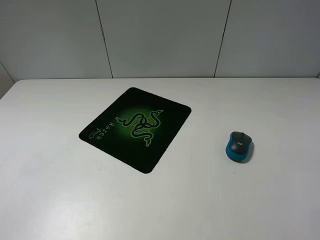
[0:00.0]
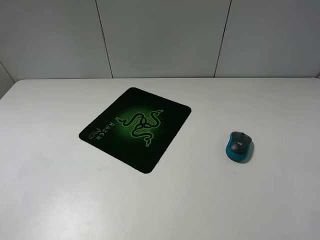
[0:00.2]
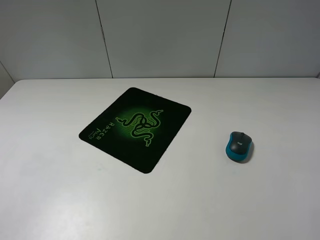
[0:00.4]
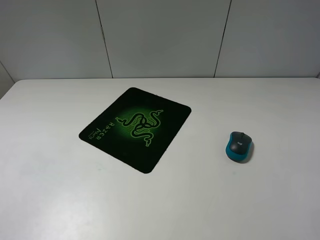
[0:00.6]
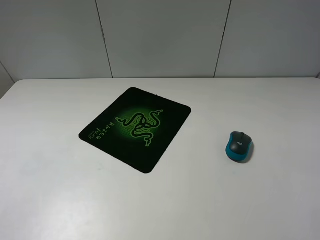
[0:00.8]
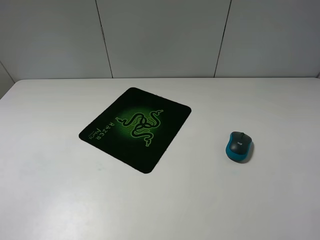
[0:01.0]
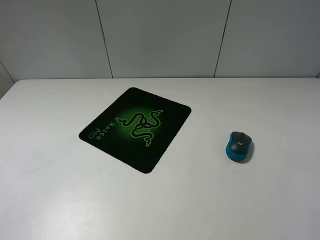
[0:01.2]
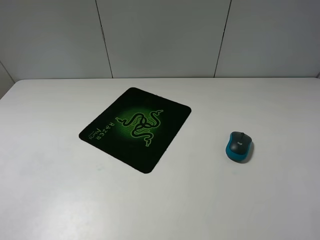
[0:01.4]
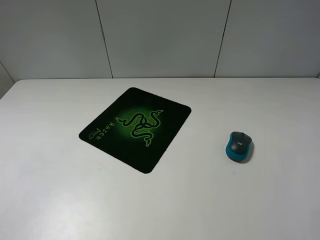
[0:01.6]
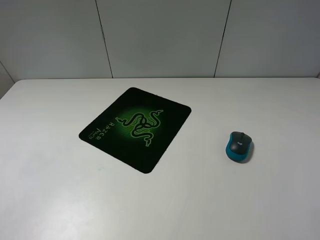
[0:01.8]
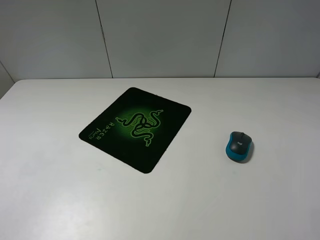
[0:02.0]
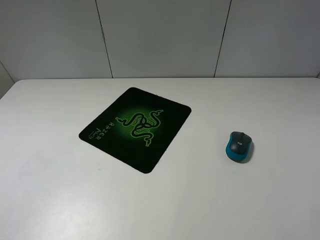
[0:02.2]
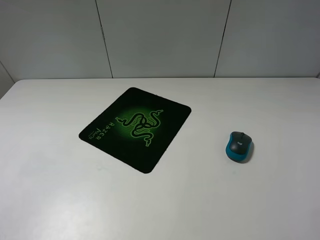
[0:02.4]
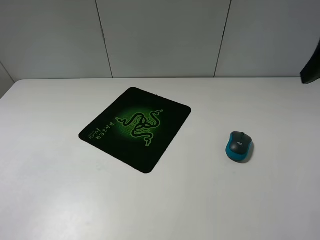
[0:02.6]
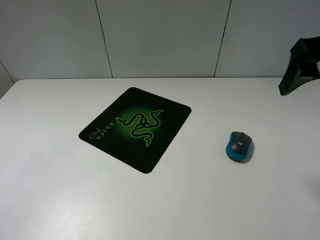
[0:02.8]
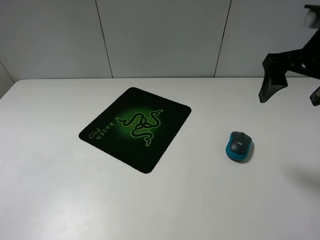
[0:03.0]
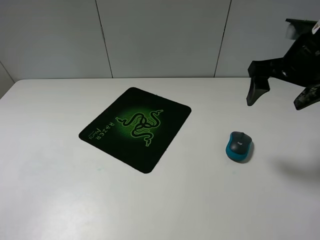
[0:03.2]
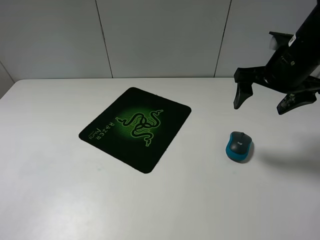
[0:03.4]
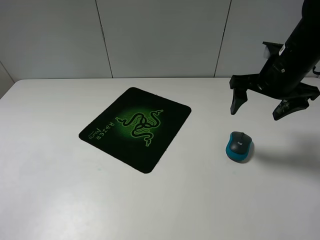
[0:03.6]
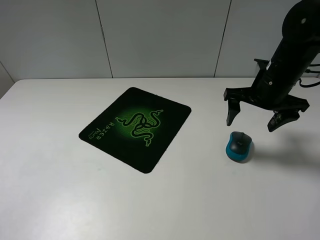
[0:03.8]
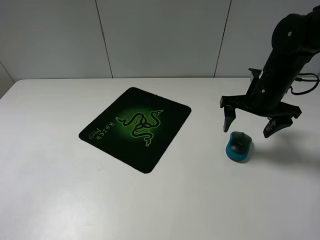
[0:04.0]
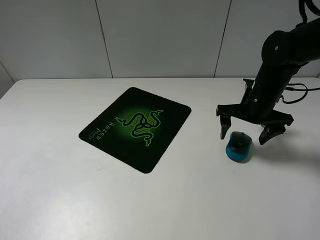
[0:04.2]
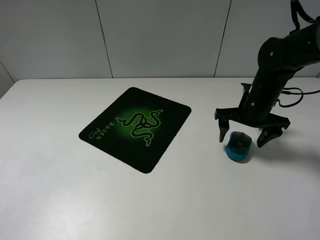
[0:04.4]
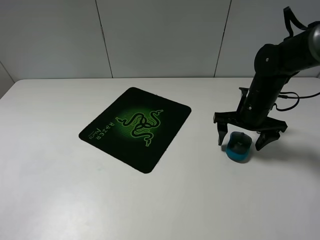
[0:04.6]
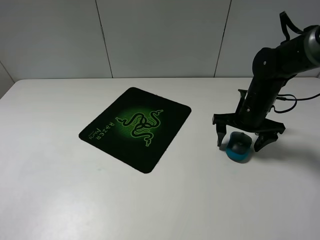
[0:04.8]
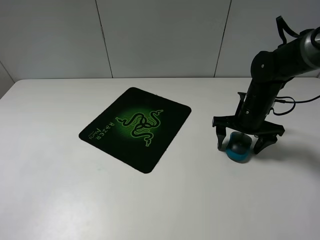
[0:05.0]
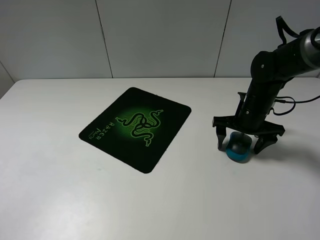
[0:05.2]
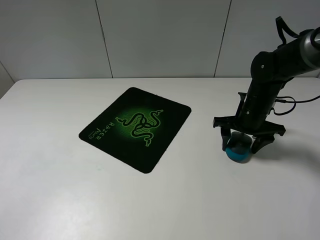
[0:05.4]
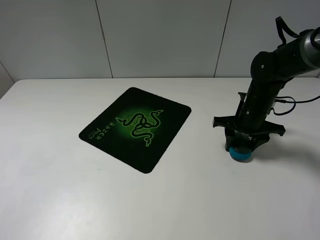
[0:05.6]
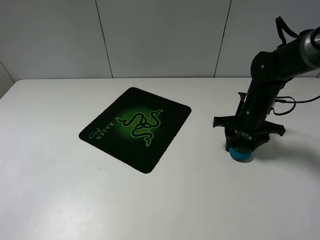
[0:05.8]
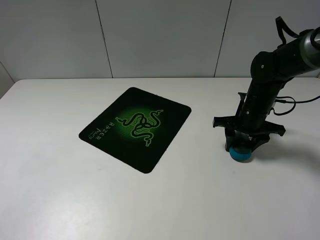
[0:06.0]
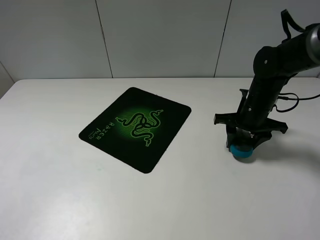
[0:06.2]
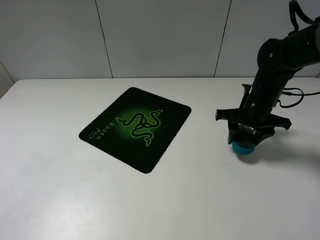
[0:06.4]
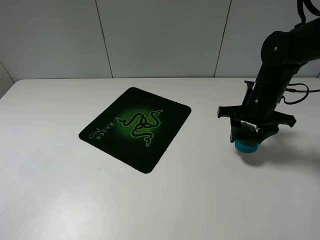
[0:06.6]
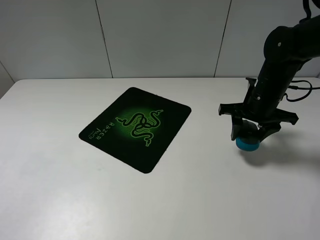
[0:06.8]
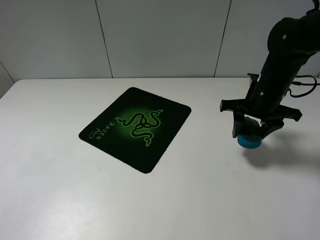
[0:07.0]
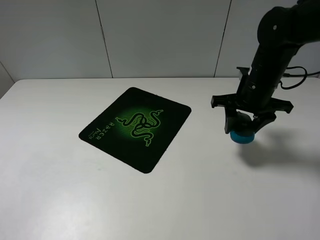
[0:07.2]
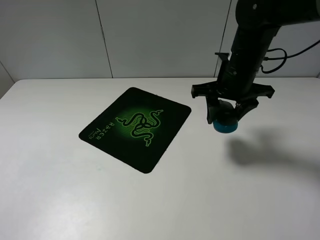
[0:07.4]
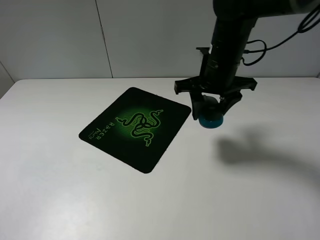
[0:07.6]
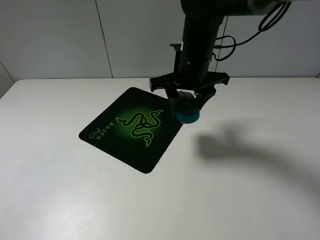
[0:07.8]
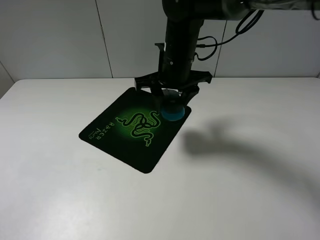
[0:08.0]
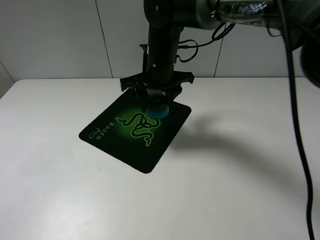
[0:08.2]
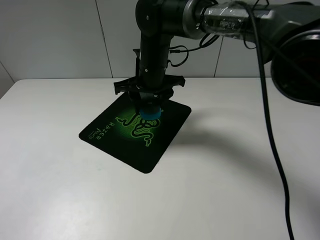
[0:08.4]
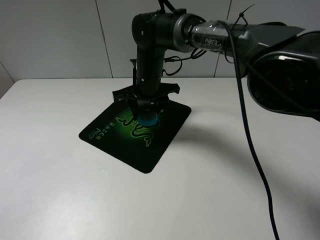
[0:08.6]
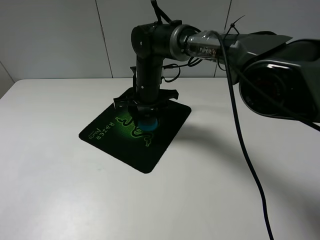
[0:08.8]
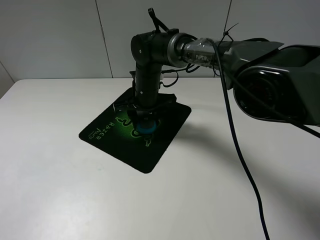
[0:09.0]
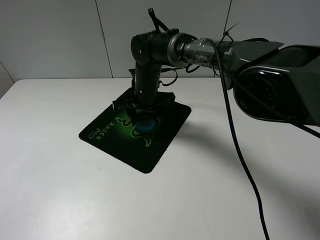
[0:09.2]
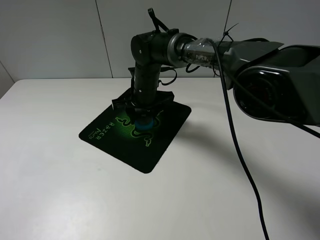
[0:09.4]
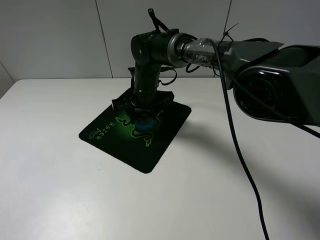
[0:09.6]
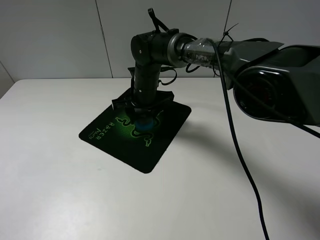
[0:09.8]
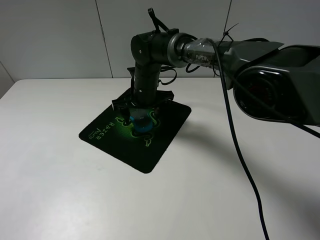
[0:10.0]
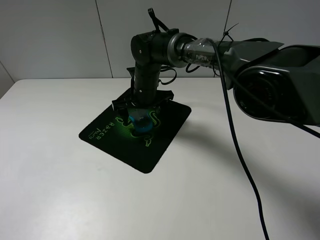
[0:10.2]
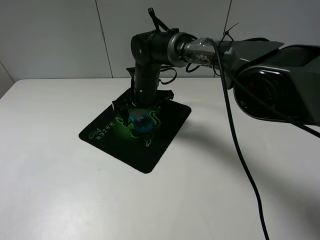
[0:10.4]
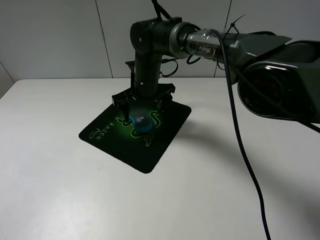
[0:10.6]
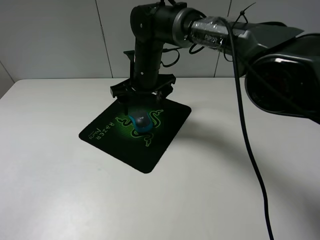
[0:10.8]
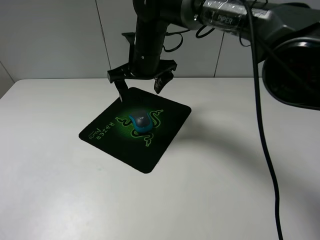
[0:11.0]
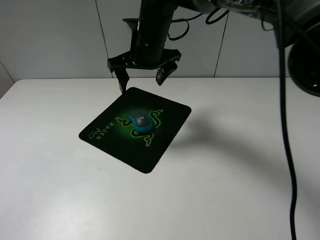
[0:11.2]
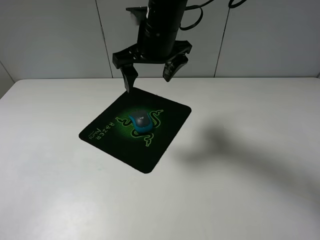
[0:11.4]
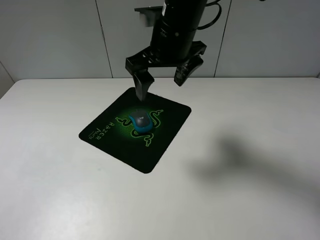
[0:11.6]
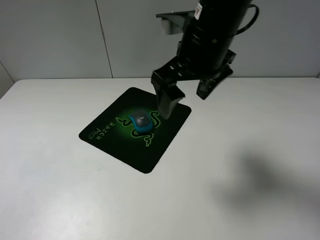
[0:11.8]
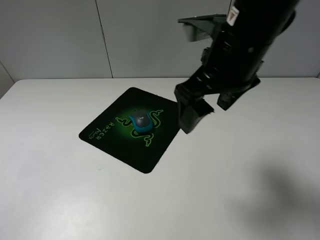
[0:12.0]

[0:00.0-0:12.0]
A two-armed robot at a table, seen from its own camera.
Step, 0:00.0 to 0:05.8: Grasp the mouse with the right gripper.
Step, 0:06.0 to 0:10.2: Place the mouse on the mouse mat with the right gripper.
0:01.6 to 0:03.0: The right gripper travels forward by some 25 cm.
0:03.0 to 0:04.4: The right gripper moves downward and forward, approximately 20 cm.
0:04.4 to 0:06.0: The right gripper closes up.
0:06.0 to 0:07.6: The right gripper goes approximately 15 cm upward and to the left.
0:07.6 to 0:09.0: The right gripper is displaced to the left, downward and forward by some 20 cm.
0:09.0 to 0:10.4: The right gripper opens.
0:10.4 to 0:12.0: The right gripper heads backward, upward and to the right, covering approximately 30 cm.

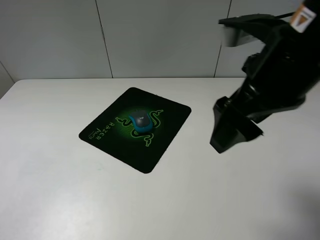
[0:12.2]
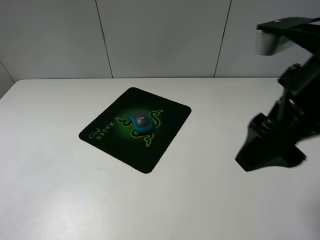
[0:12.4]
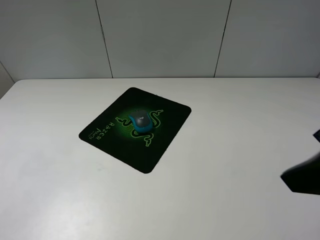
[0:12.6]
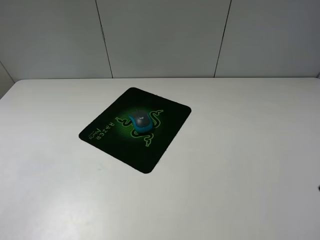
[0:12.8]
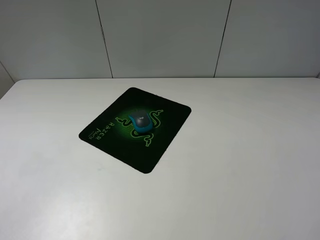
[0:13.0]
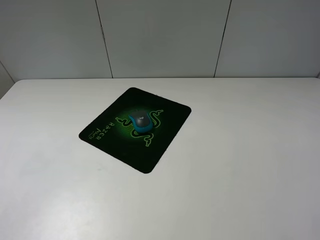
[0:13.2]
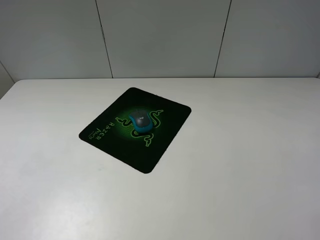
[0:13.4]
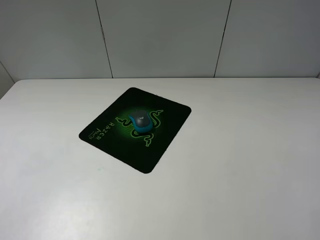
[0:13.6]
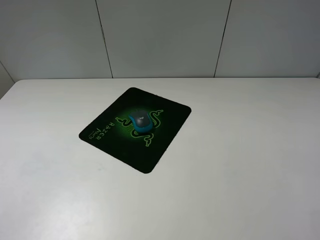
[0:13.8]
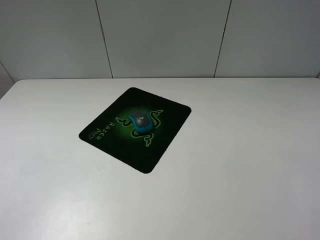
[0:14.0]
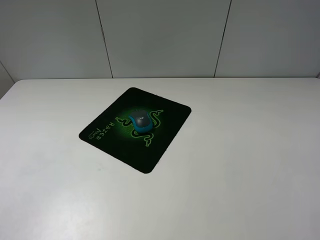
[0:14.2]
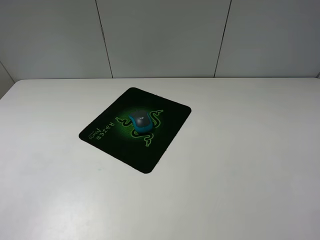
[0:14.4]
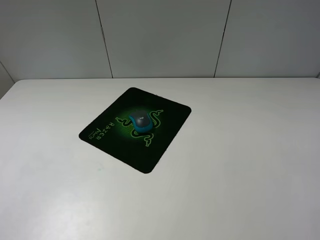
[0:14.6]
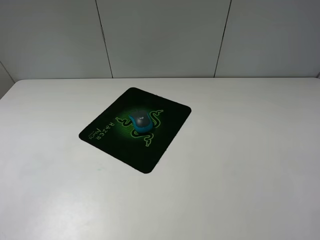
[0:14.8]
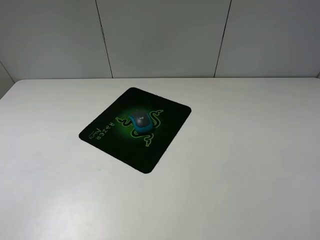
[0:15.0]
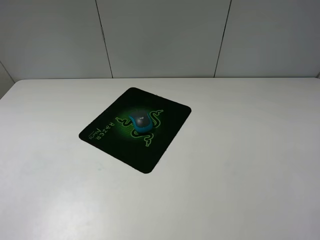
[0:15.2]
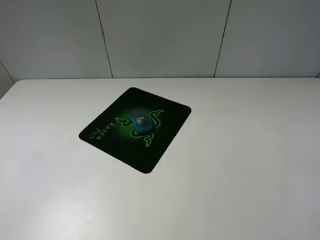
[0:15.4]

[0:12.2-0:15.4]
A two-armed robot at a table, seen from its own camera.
0:12.2 to 0:13.8: The right gripper moves backward and to the right, approximately 25 cm.
0:13.8 to 0:15.4: The two grippers keep their place.

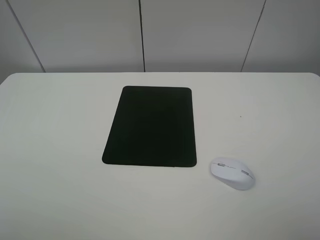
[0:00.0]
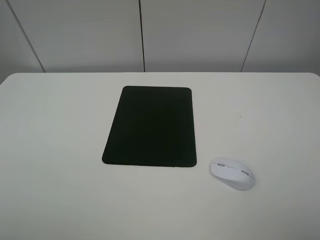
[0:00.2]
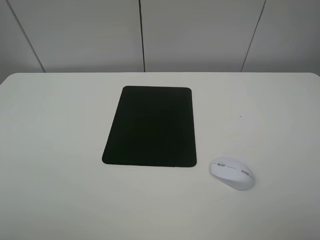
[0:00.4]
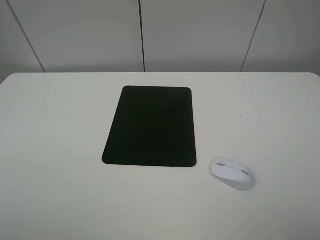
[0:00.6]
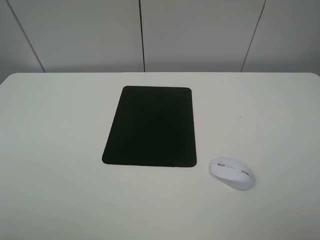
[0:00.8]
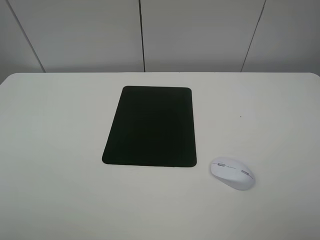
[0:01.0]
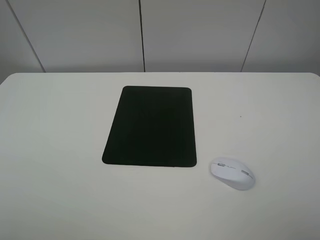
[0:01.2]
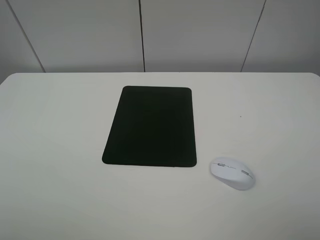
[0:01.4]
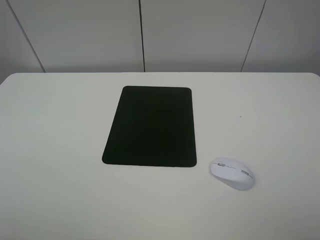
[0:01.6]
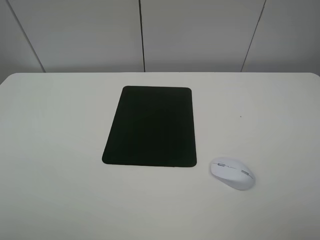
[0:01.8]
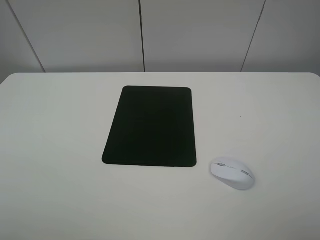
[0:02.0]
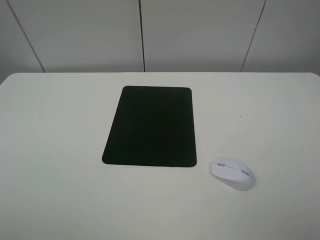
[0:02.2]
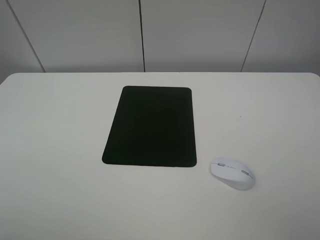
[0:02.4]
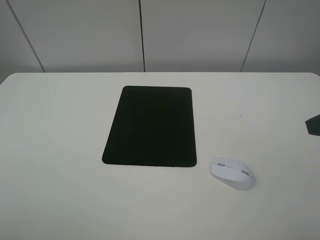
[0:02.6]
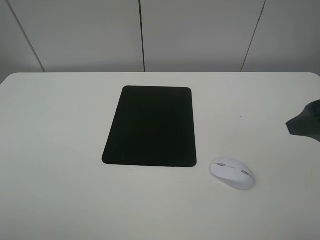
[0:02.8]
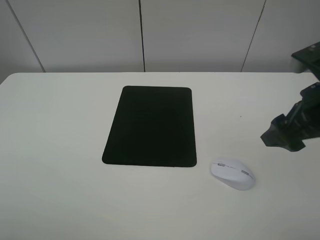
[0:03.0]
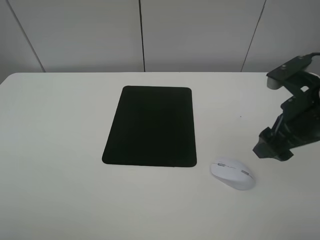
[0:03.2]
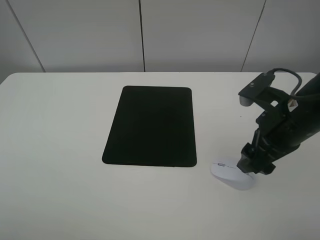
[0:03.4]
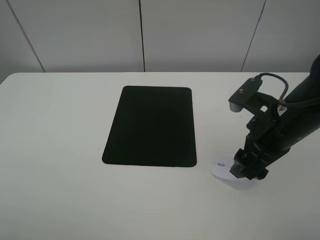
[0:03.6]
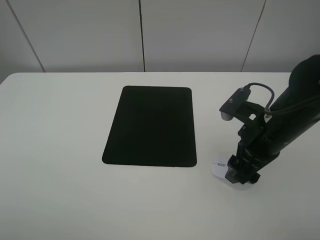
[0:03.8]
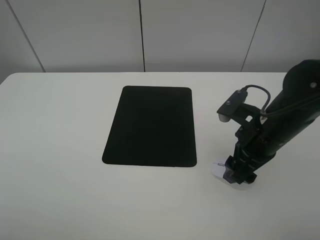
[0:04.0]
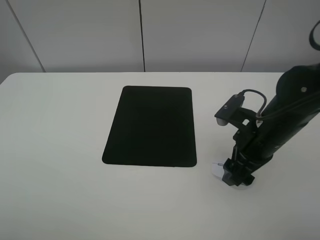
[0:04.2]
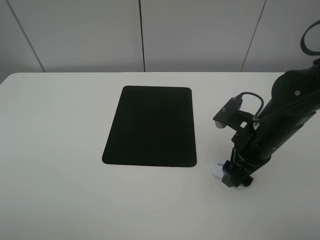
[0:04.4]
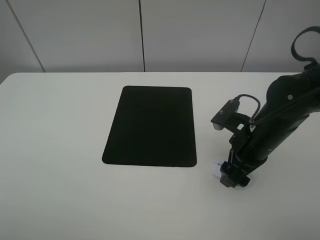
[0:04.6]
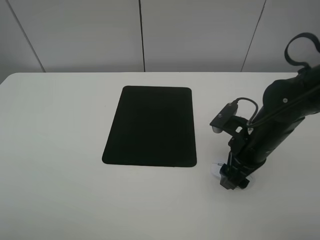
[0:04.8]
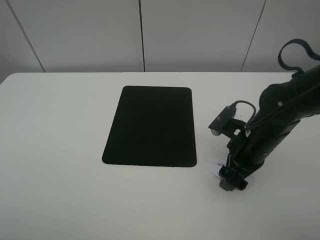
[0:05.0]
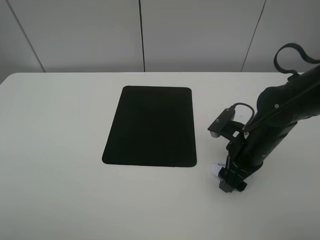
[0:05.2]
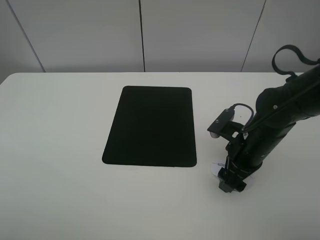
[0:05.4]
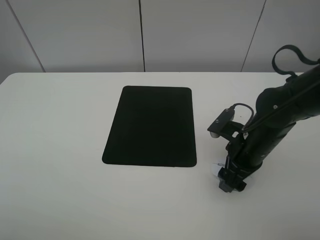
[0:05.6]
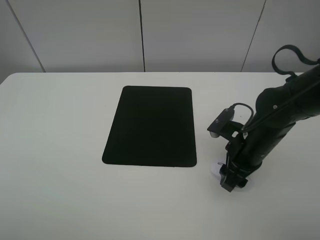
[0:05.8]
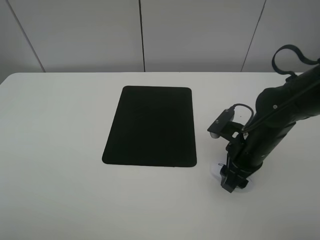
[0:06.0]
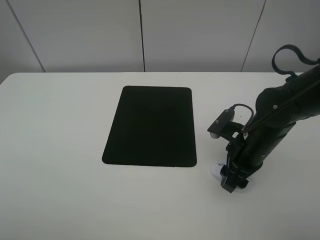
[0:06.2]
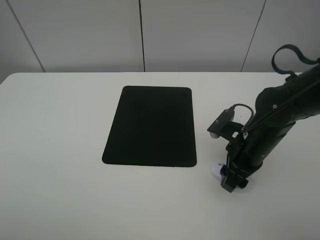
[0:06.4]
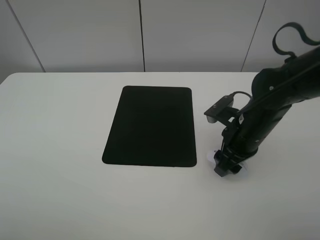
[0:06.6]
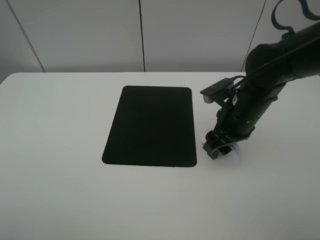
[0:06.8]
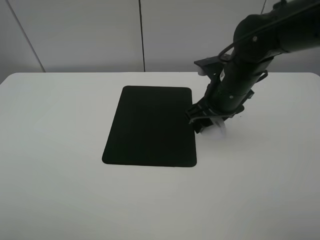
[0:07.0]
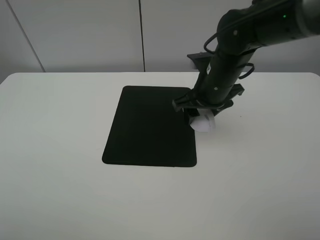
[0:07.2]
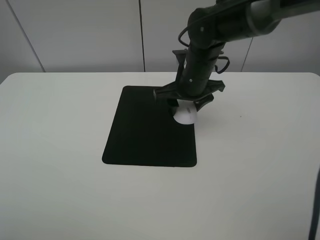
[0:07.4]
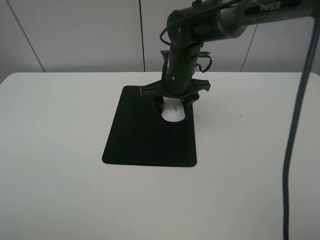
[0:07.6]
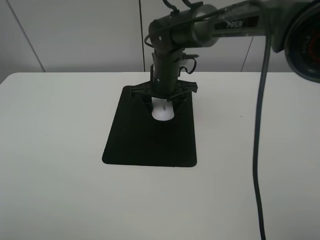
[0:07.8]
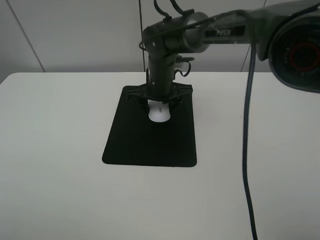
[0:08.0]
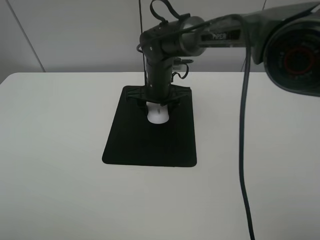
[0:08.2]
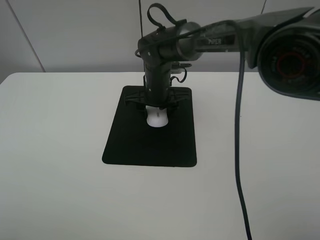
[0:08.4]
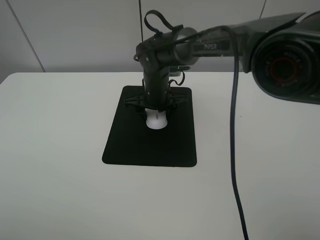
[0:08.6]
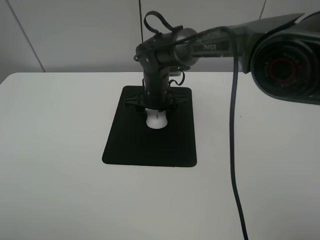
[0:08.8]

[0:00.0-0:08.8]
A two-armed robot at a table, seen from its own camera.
Step, 0:00.0 to 0:06.0: Grasp the mouse with the right gripper.
0:00.0 to 0:01.4: Both grippers stay put.
0:01.4 to 0:03.0: The right gripper is displaced forward by some 20 cm.
0:03.0 to 0:04.4: The right gripper moves downward and to the left, roughly 10 cm.
0:04.4 to 0:05.8: The right gripper closes.
0:05.8 to 0:07.4: The right gripper is displaced forward, to the left and upward by about 20 cm.
0:07.4 to 0:08.8: The right gripper goes approximately 10 cm to the left and downward.
